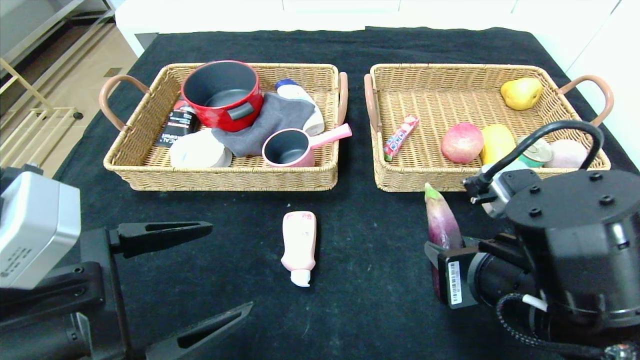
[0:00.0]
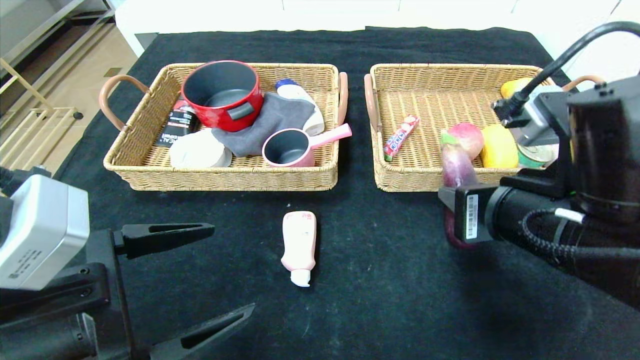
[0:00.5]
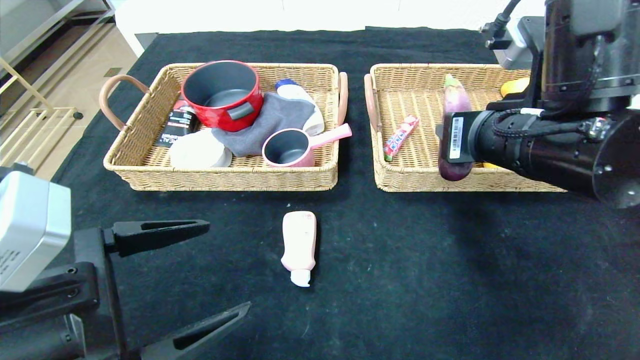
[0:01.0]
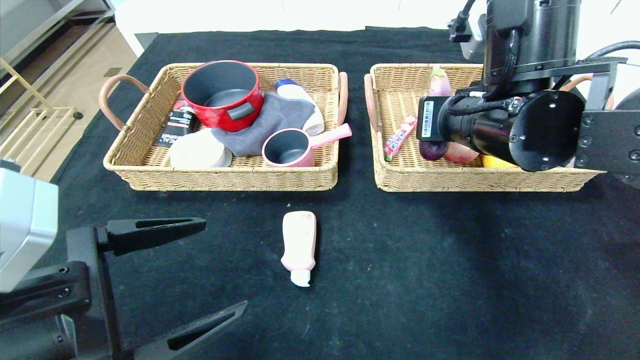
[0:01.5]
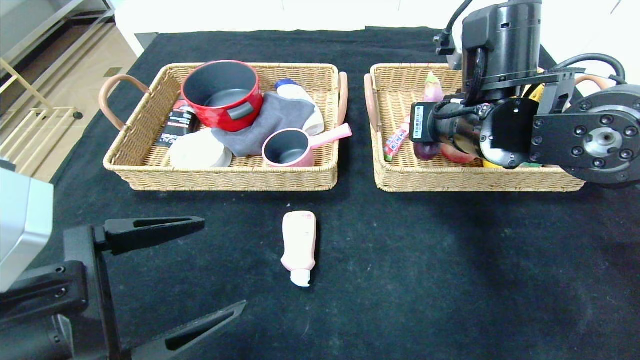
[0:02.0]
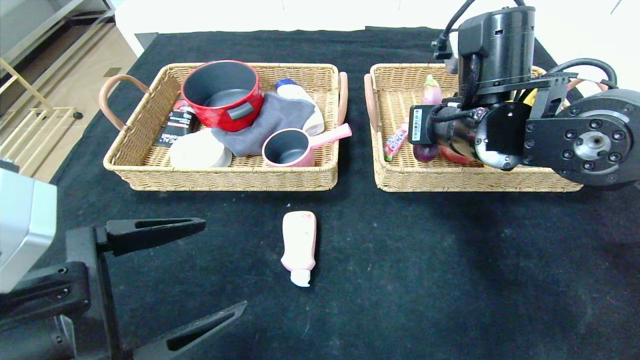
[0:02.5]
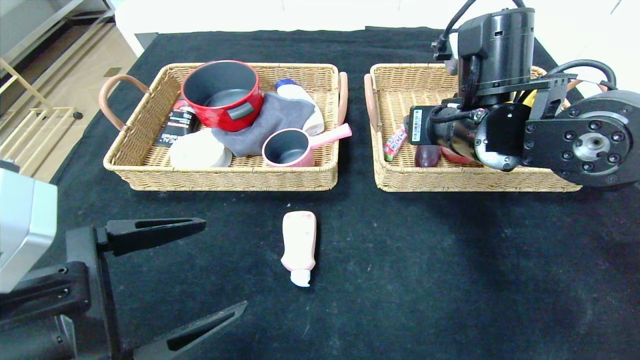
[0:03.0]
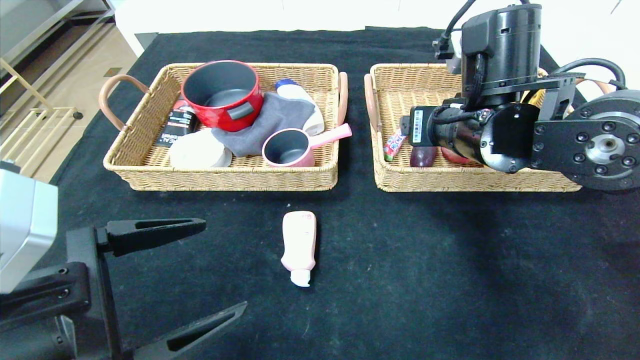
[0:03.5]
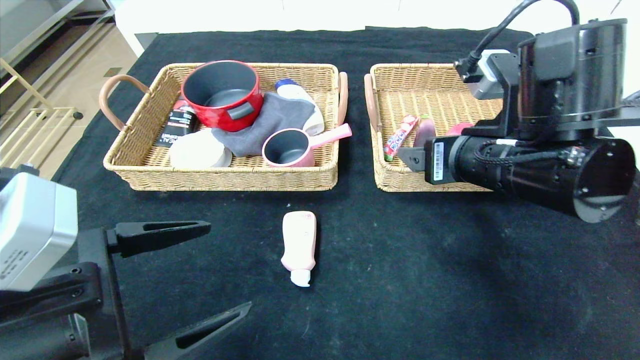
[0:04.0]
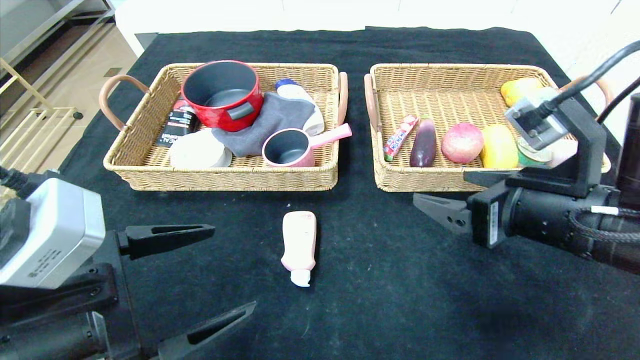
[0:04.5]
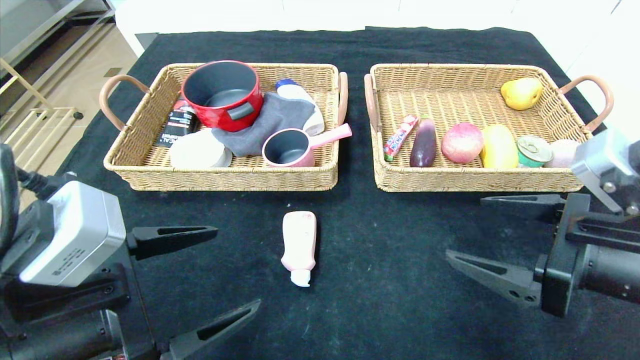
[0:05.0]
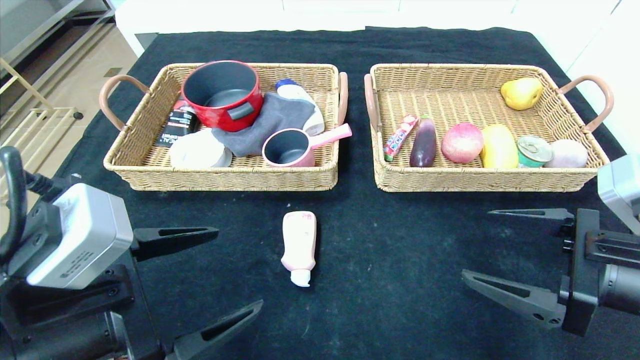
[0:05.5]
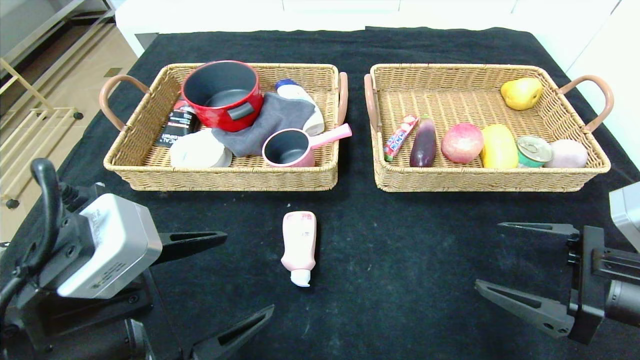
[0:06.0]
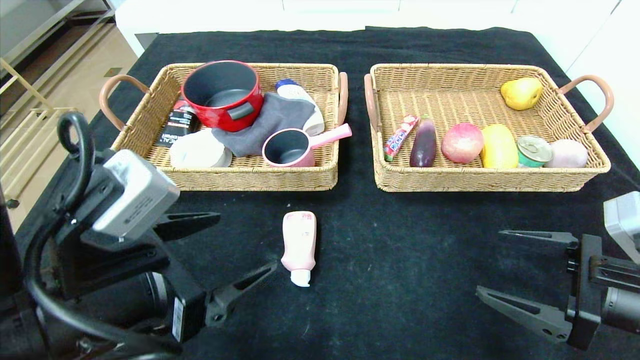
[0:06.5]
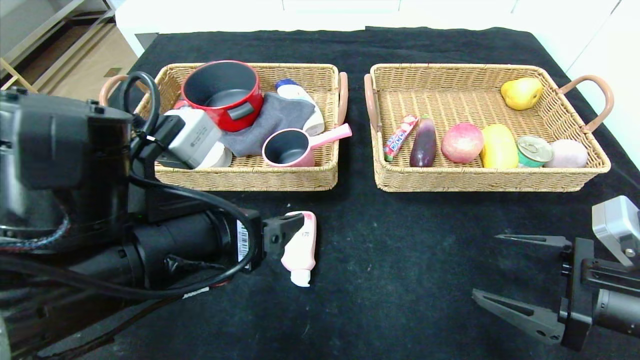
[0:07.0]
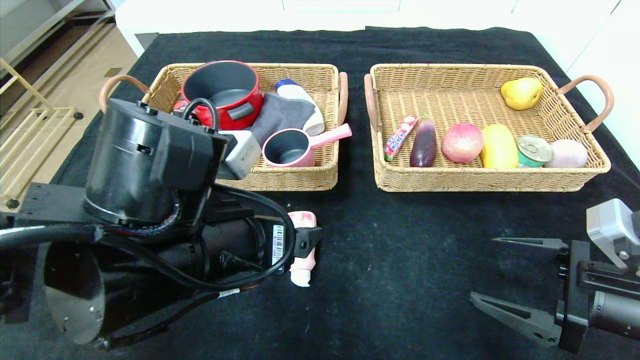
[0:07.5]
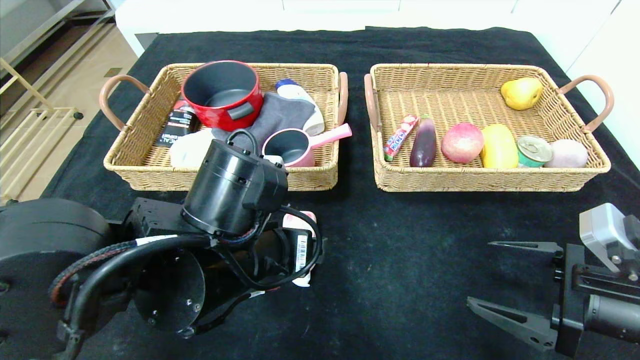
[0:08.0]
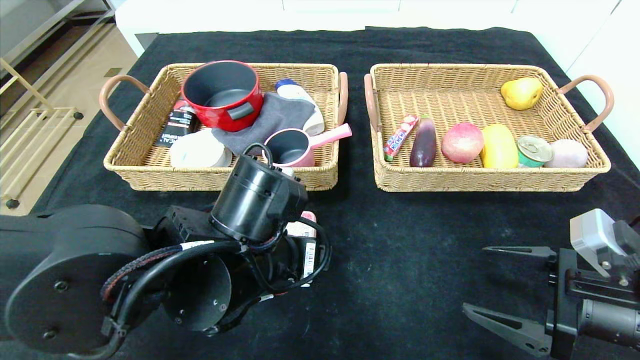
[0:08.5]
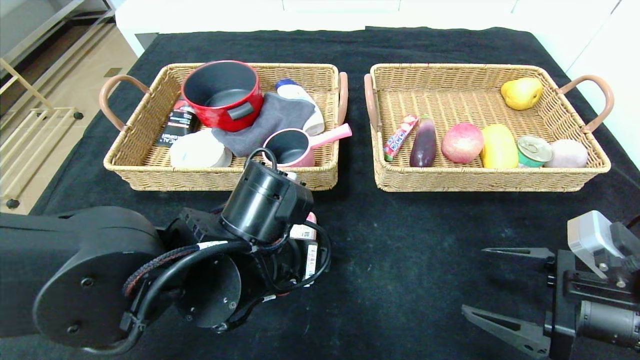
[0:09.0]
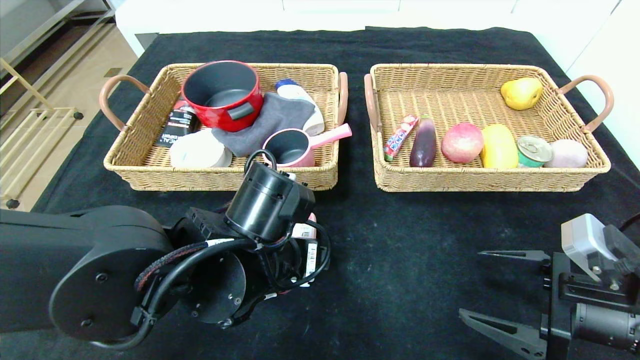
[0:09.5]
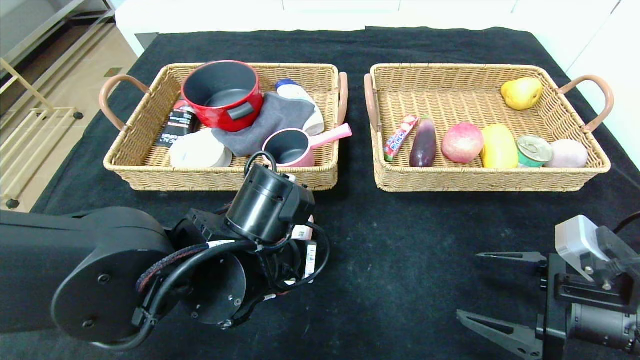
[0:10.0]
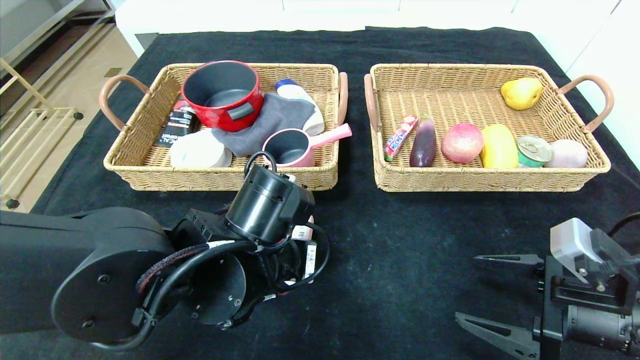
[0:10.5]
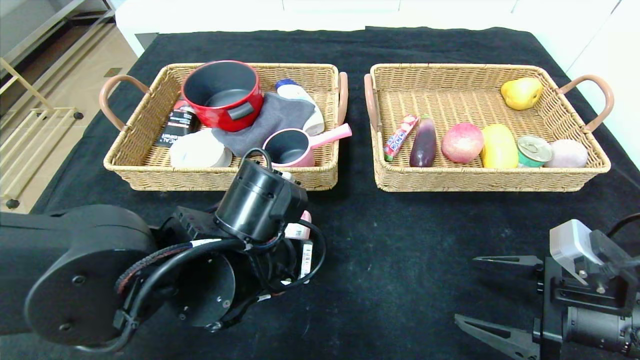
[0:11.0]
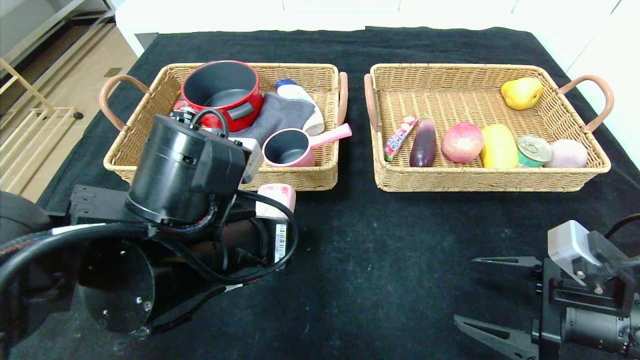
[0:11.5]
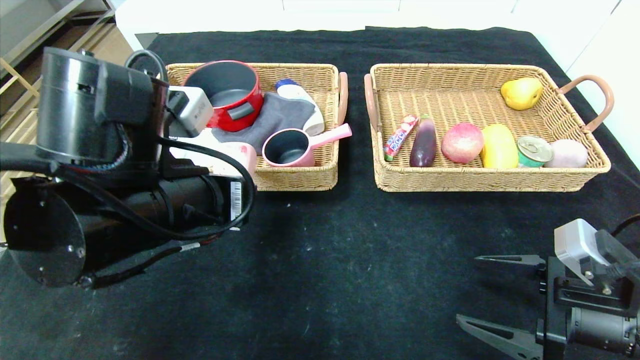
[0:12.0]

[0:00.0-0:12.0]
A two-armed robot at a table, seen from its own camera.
Step, 0:00.0 to 0:03.0: Grasp the eggplant and put it in the right basket.
0:00.0 to 0:02.0: The right gripper travels forward and upward by some 15 cm.
0:02.0 to 0:04.0: The right gripper is displaced backward by approximately 5 cm, and opens up.
0:04.0 to 0:06.0: The right gripper moves to the right, downward and backward, roughly 15 cm.
0:06.0 to 0:08.0: The left gripper heads to the right and forward, covering roughly 15 cm.
0:08.0 to 0:10.0: The left gripper closes its fingers.
0:10.0 to 0:12.0: The left gripper goes about 10 cm upward and to the left.

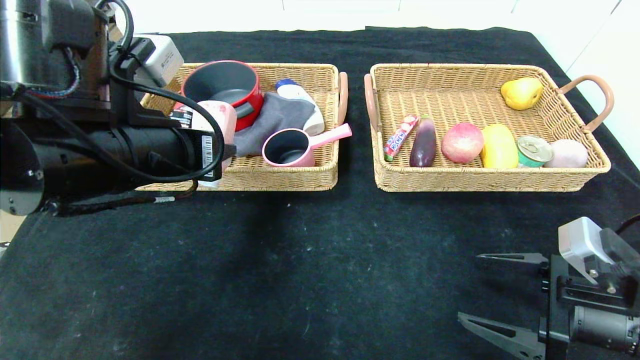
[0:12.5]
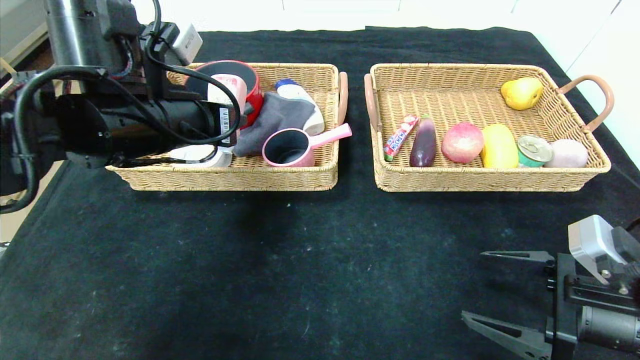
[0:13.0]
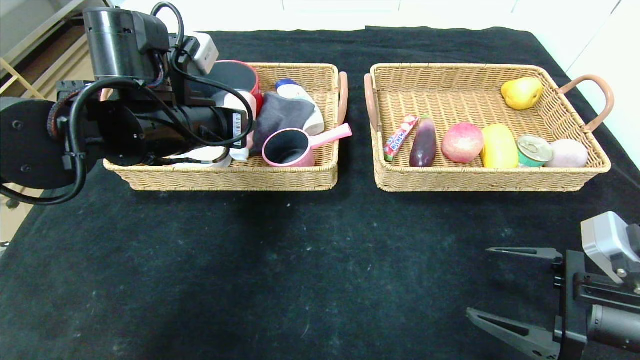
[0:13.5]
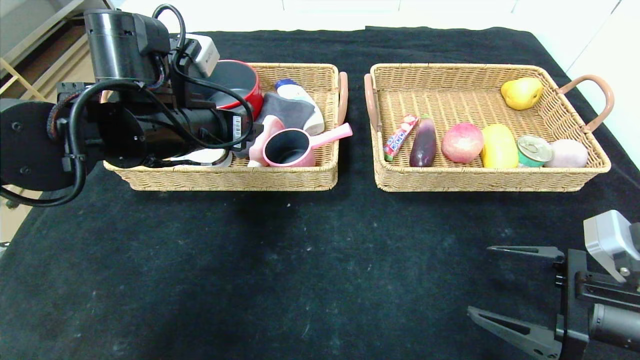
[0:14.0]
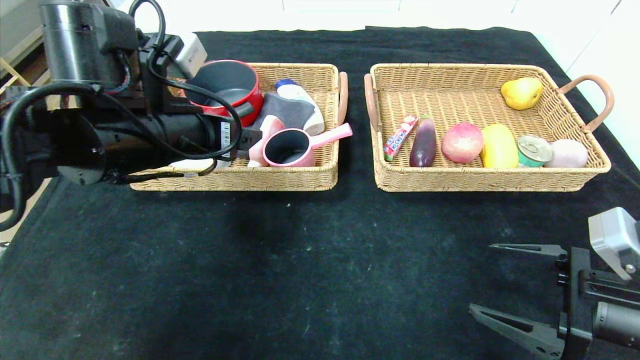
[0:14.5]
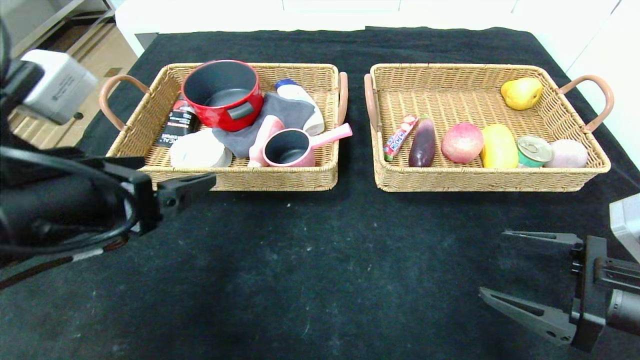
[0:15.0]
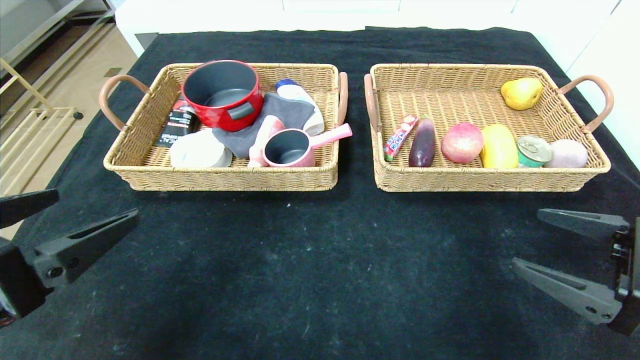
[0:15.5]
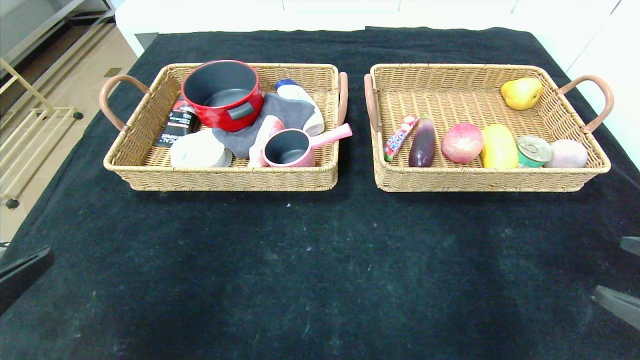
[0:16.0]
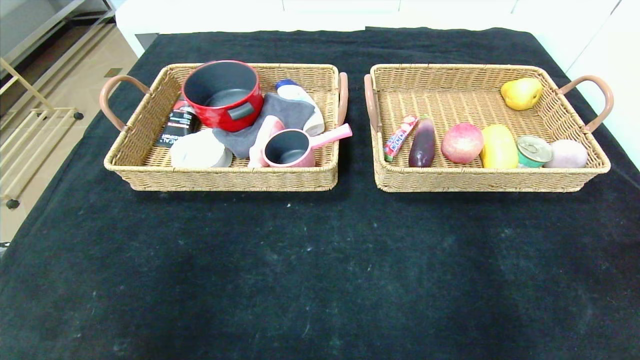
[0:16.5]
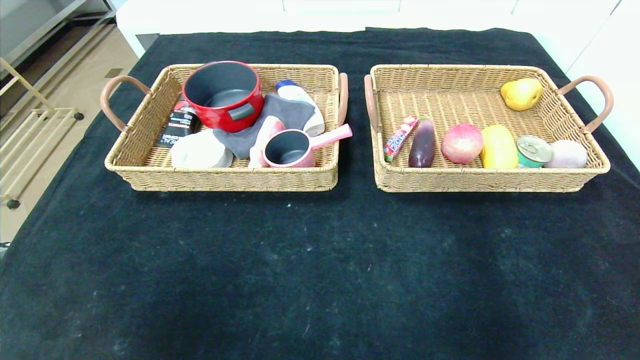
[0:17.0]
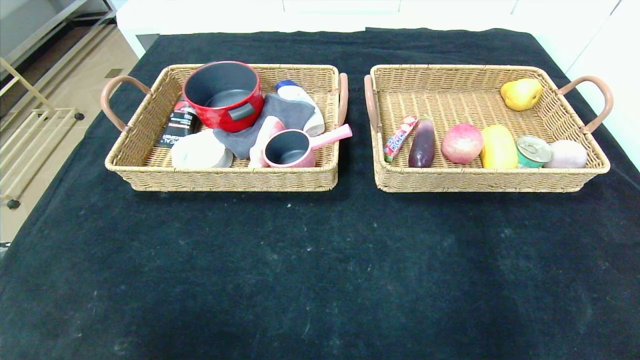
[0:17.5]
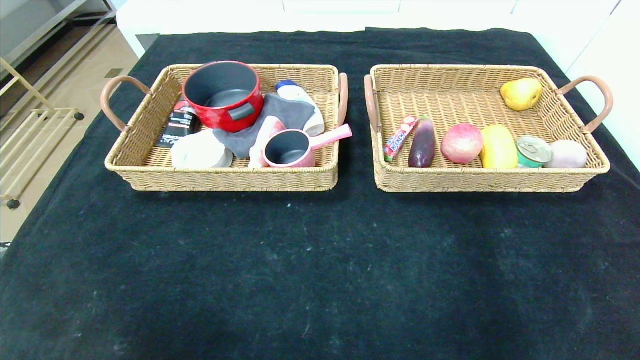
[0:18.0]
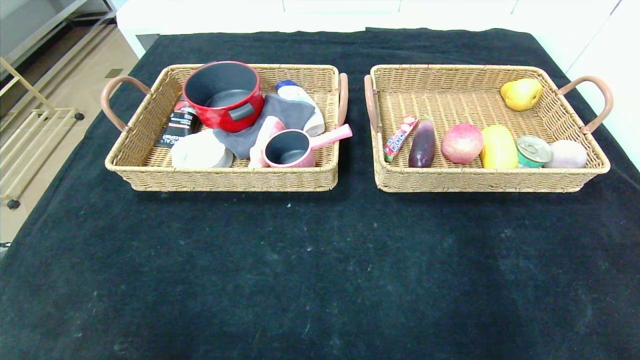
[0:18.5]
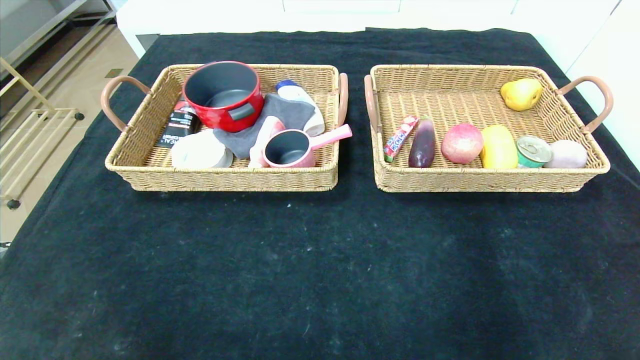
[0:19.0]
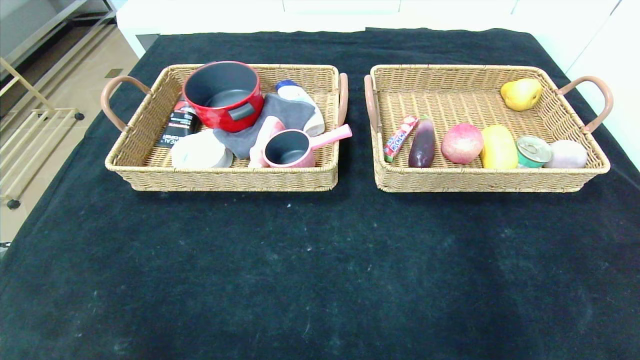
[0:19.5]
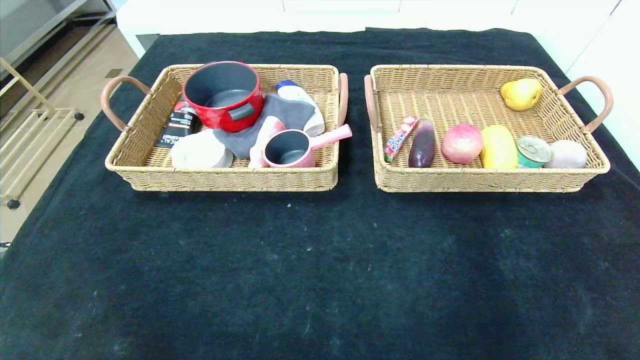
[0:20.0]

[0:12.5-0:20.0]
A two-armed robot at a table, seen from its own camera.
0:12.5 to 0:14.5: The left gripper opens its fingers.
0:14.5 to 0:16.5: The left gripper goes roughly 30 cm backward and to the left. Meanwhile the right gripper shifts approximately 20 cm backward, upward and to the right.
0:16.5 to 0:18.0: The left gripper is displaced downward and backward by about 10 cm.
